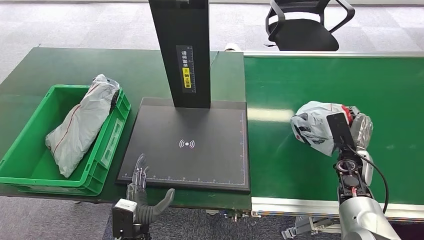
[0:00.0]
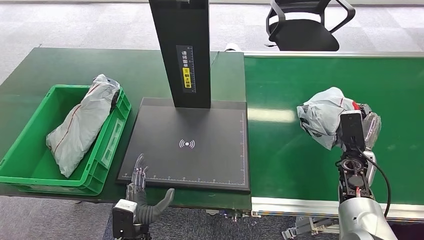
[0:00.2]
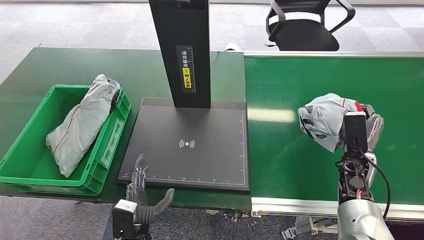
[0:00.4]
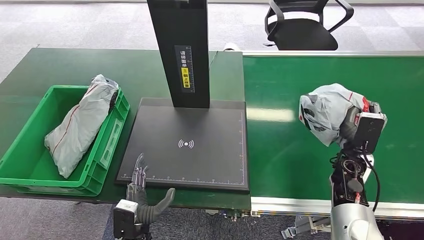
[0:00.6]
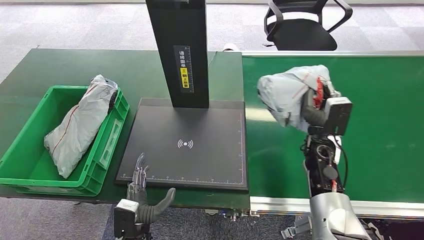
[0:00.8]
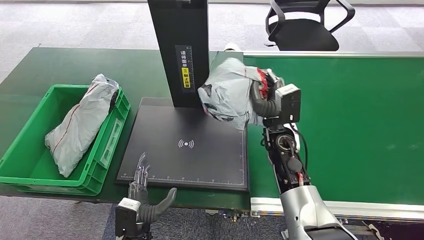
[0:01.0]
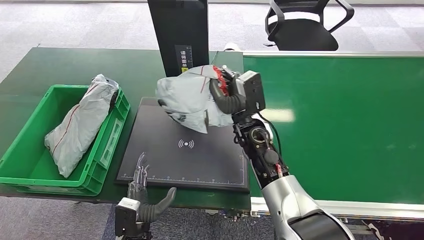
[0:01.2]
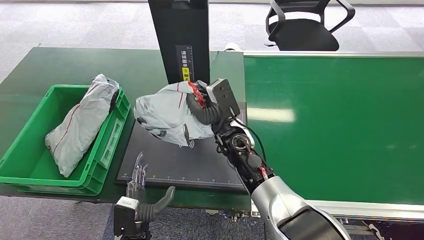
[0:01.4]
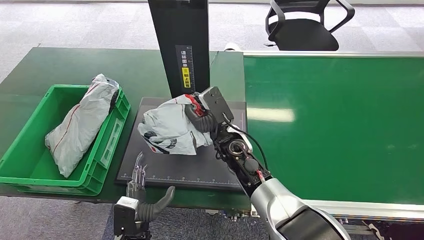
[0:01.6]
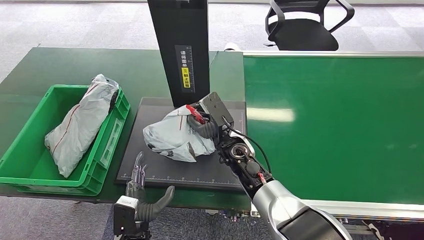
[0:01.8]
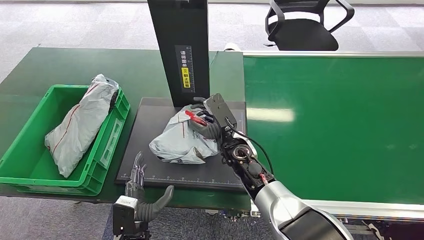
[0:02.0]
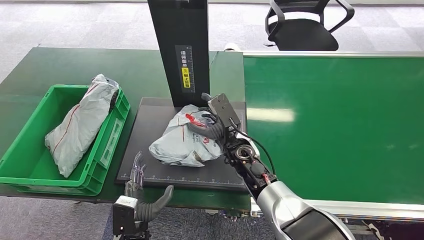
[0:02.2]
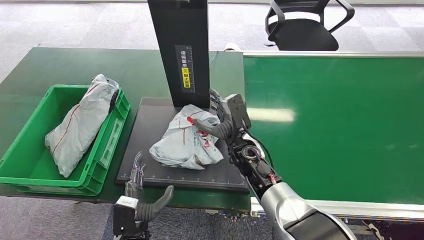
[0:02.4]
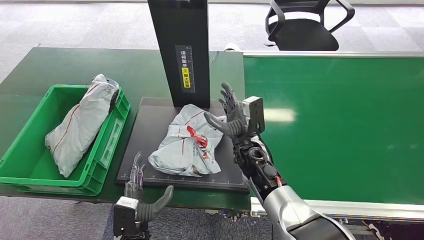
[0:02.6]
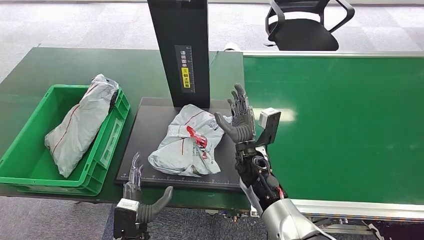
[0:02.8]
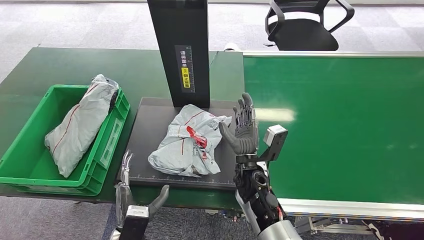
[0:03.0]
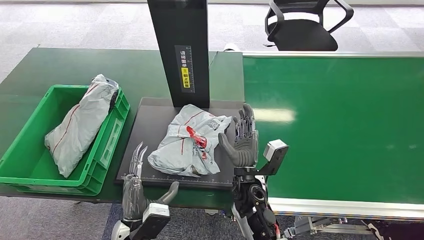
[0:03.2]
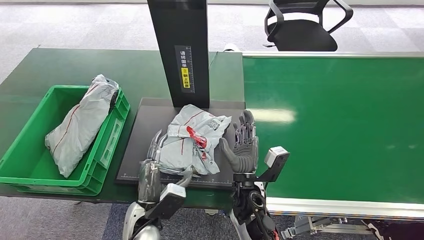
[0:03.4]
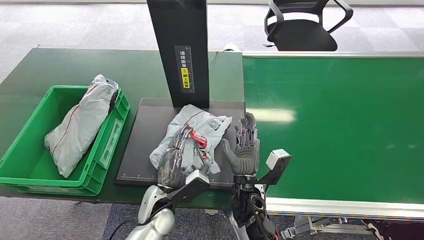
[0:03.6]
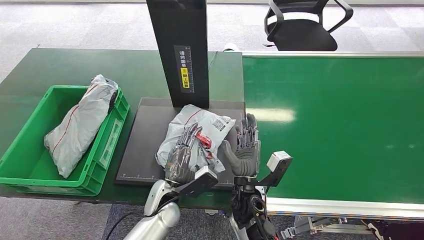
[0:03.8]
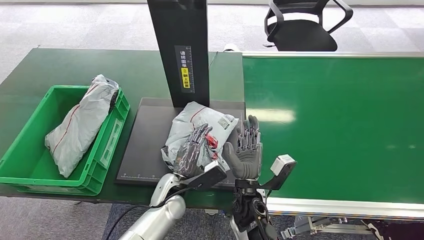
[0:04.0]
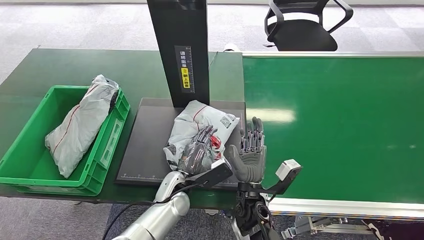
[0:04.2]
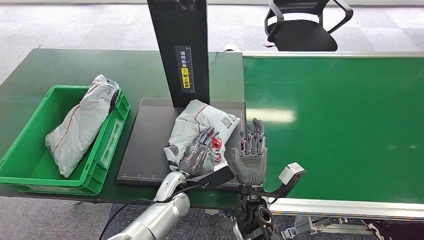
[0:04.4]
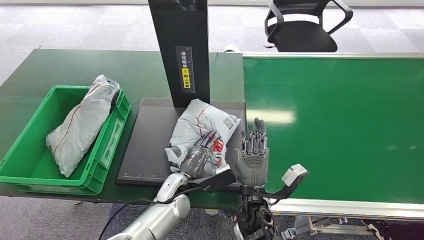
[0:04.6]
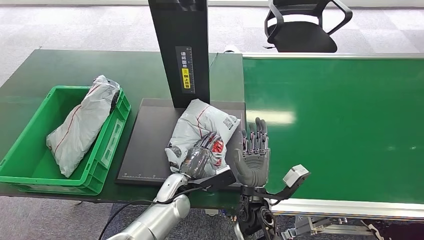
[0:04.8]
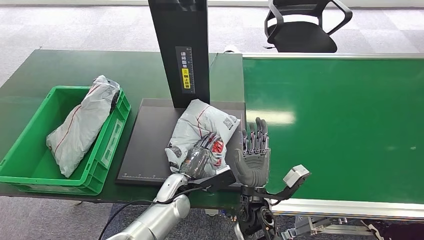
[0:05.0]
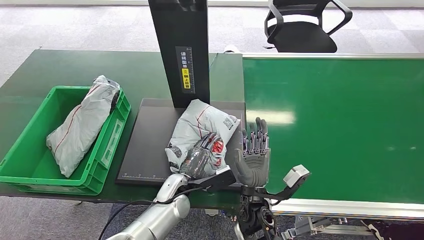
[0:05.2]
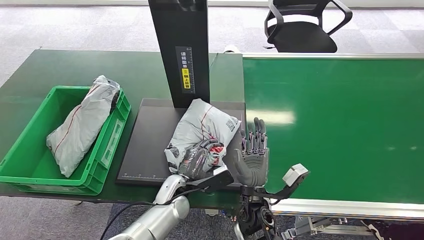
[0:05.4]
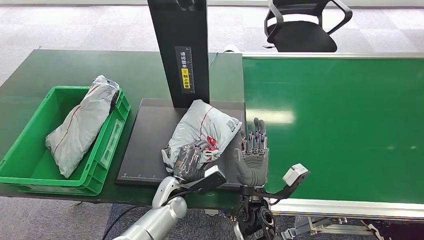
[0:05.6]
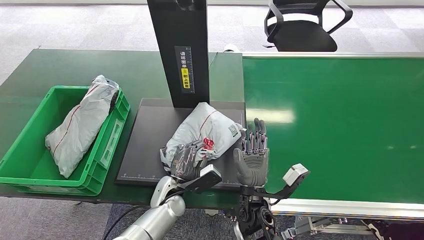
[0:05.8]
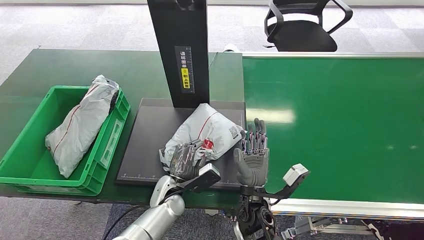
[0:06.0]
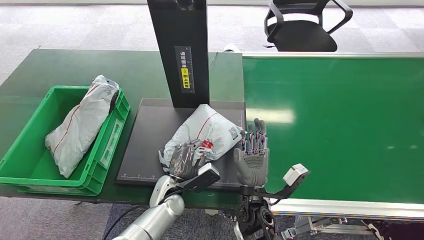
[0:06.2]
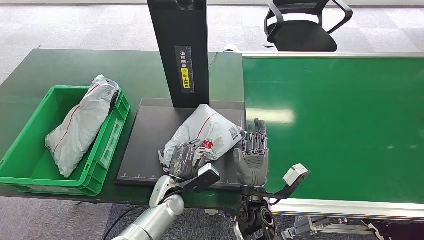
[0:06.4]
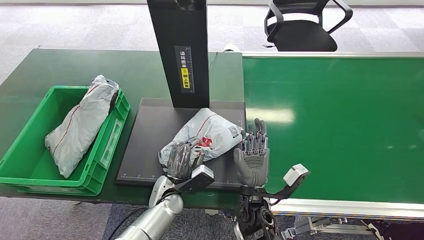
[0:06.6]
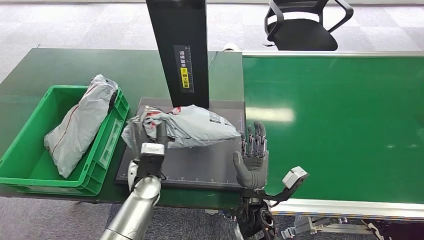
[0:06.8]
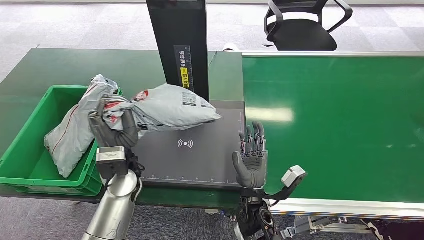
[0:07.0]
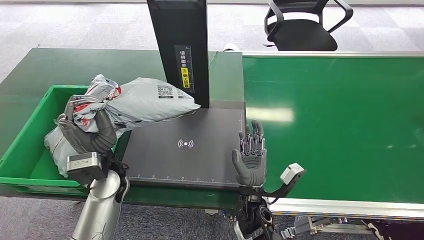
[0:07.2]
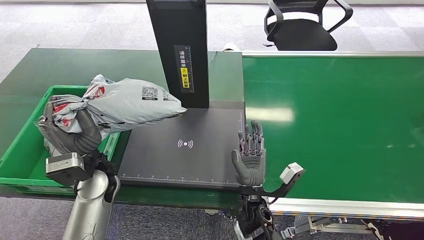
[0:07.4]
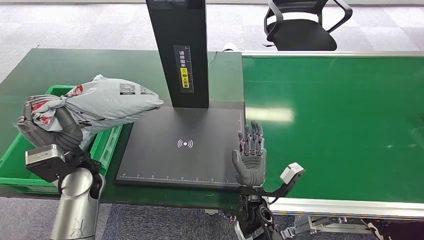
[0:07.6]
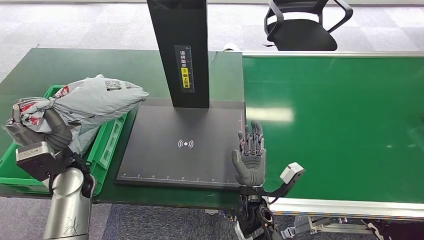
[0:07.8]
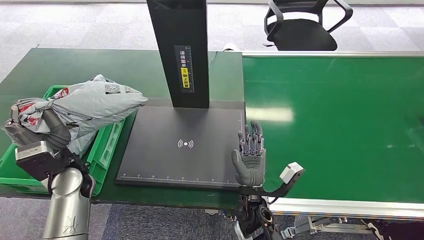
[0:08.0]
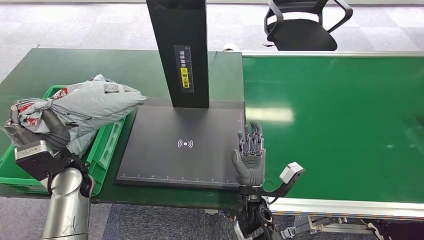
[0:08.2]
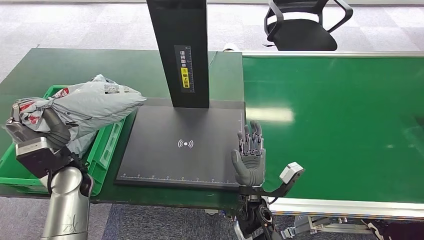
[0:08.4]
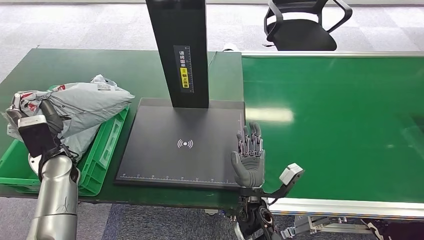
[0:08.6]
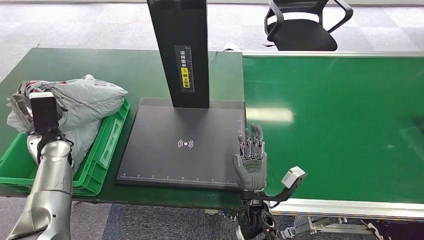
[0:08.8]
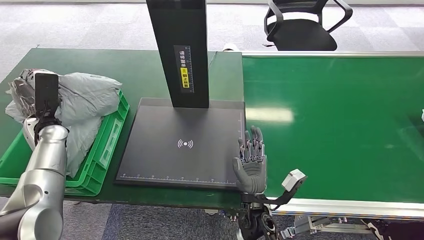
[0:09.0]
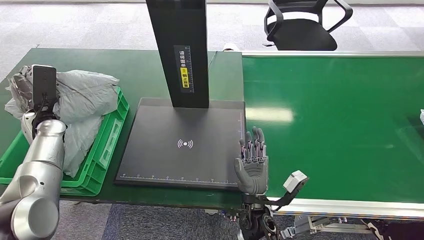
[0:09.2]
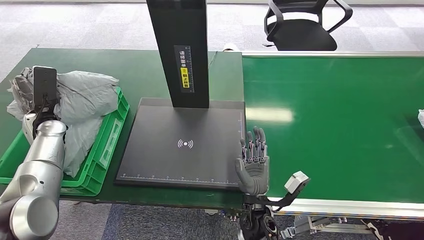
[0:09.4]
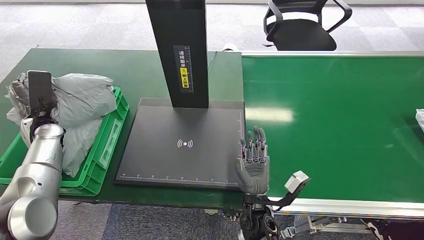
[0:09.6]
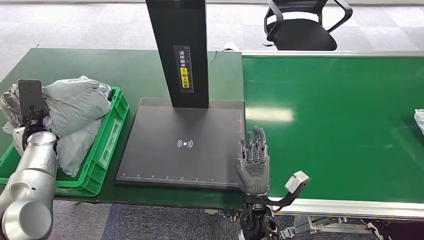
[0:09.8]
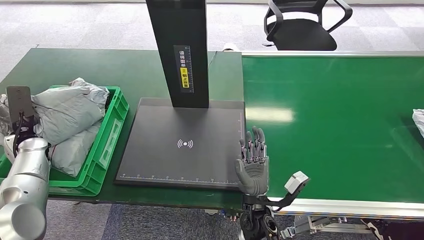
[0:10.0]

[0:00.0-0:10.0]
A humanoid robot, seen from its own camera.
Step, 0:00.4 to 0:03.2: Place the package onto the inbound machine.
Step, 0:03.4 to 0:07.4: Pick up the package from the inbound machine.
0:00.0 to 0:01.4: The right hand moves to the left, roughly 35 cm.
0:01.4 to 0:02.8: The right hand shifts about 5 cm downward.
0:02.8 to 0:04.2: The right hand travels backward by about 10 cm. The left hand is displaced forward and to the right by roughly 15 cm.
0:04.2 to 0:05.8: There are only small adjustments of the hands.
0:05.8 to 0:07.2: The left hand heads upward and to the left, covering roughly 20 cm.
0:07.2 to 0:08.6: The left hand shifts approximately 15 cm to the left.
0:08.6 to 0:10.0: The left hand shifts about 10 cm to the left.

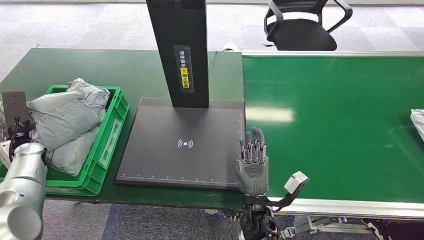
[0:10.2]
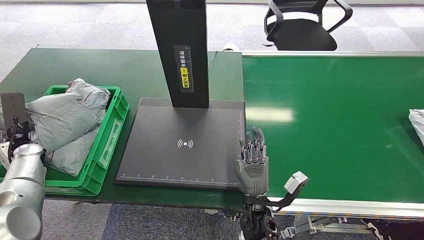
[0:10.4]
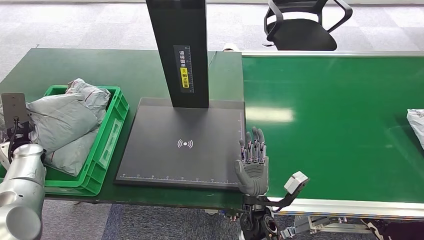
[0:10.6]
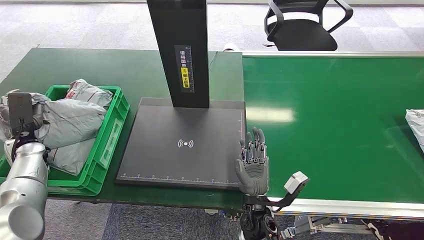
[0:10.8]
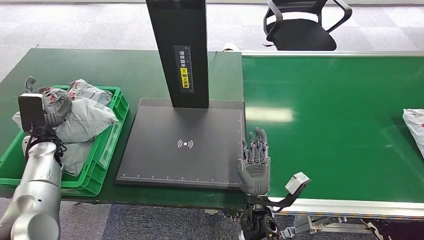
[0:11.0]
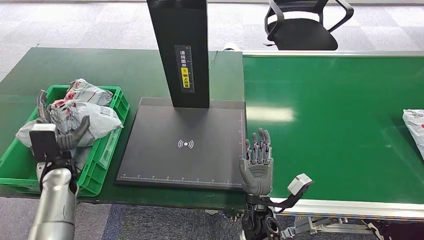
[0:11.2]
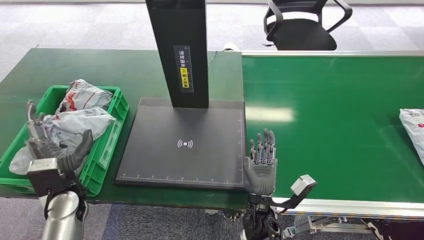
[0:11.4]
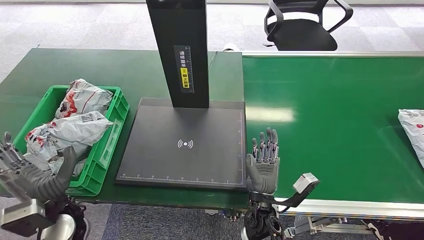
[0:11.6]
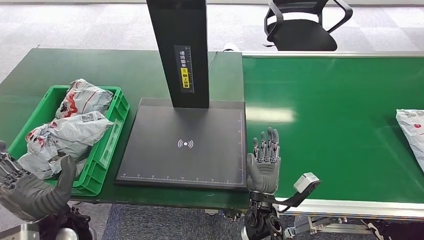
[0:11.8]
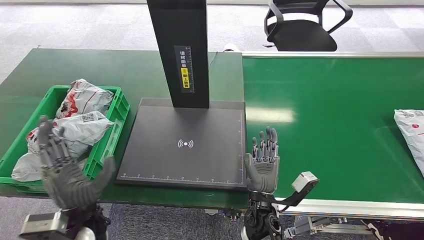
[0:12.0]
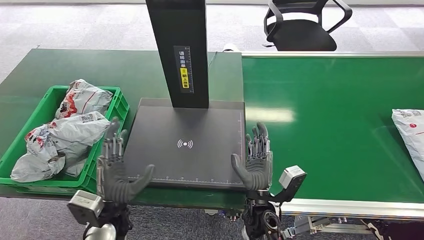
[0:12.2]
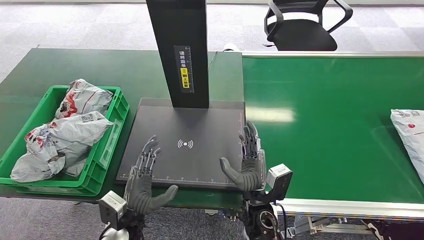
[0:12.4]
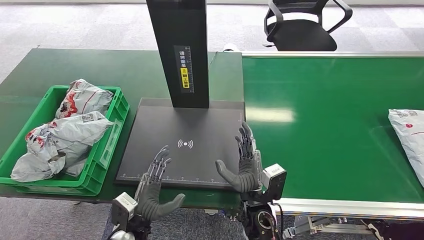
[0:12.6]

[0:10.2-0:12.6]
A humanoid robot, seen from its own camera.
Step, 0:10.2 to 0:12.6: Place the package into the parcel locker.
0:10.2 to 0:11.4: The left hand travels to the right and backward by about 20 cm.
0:11.4 to 0:12.6: The left hand heads to the right, downward and backward, covering roughly 20 cm.
